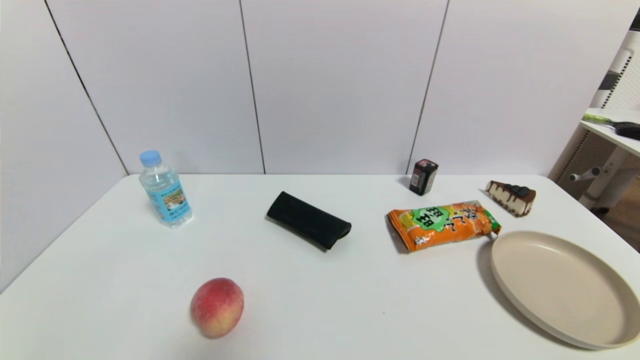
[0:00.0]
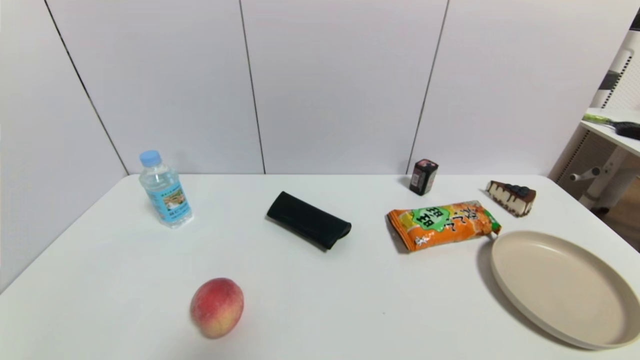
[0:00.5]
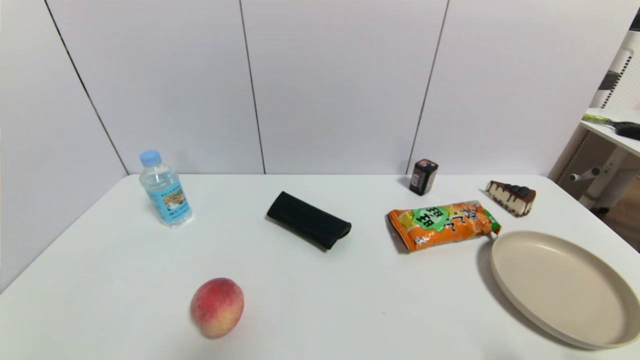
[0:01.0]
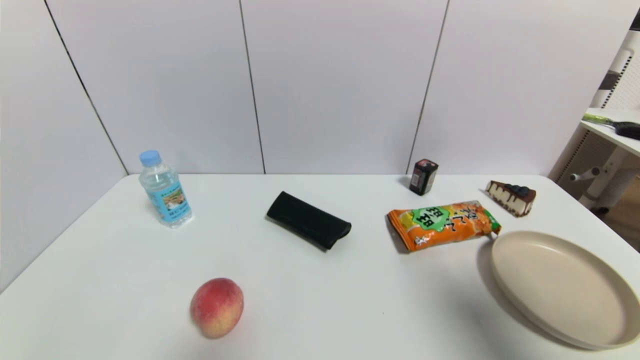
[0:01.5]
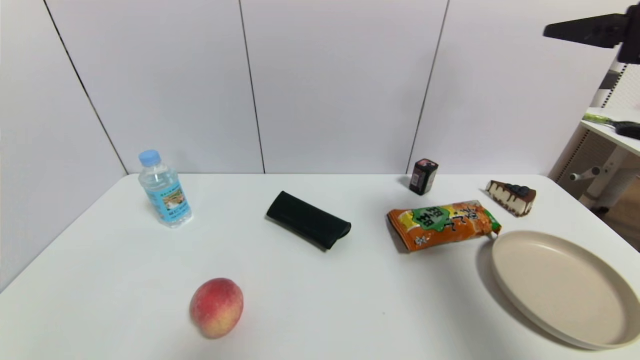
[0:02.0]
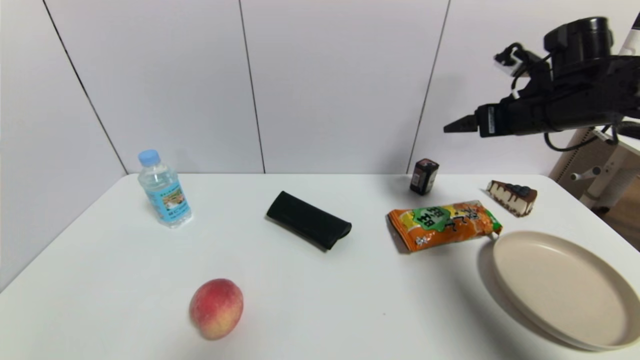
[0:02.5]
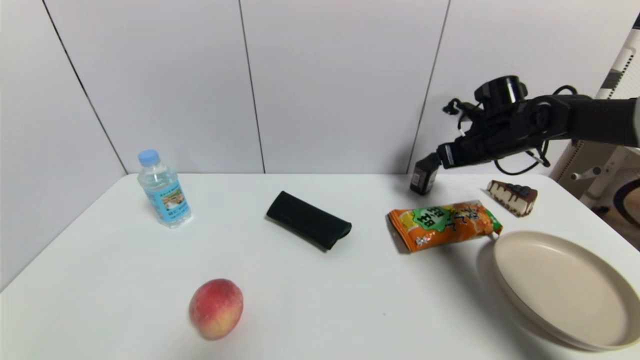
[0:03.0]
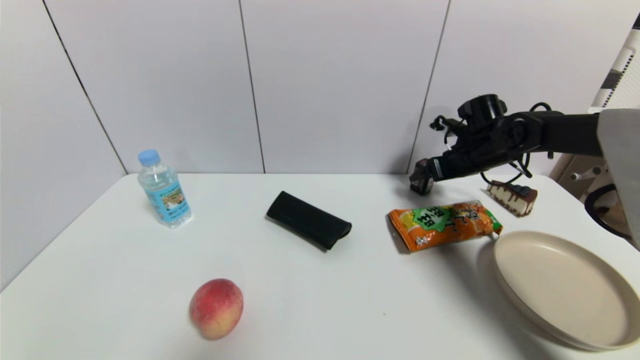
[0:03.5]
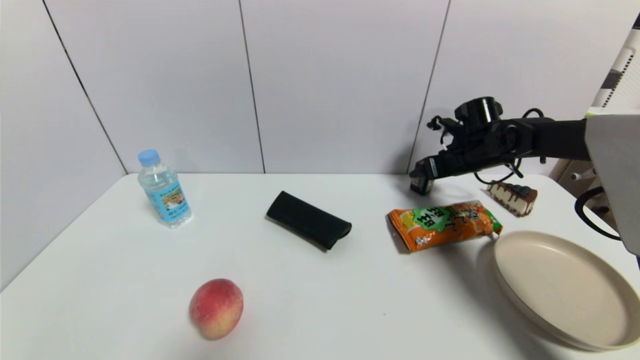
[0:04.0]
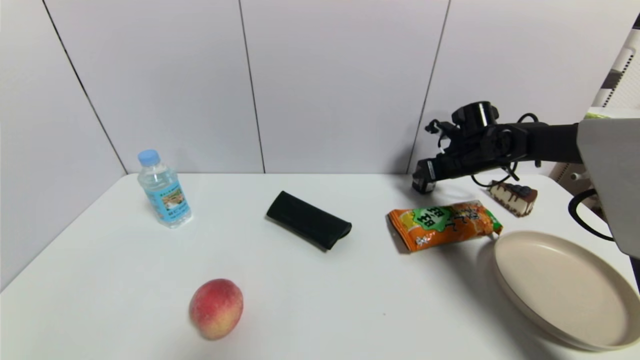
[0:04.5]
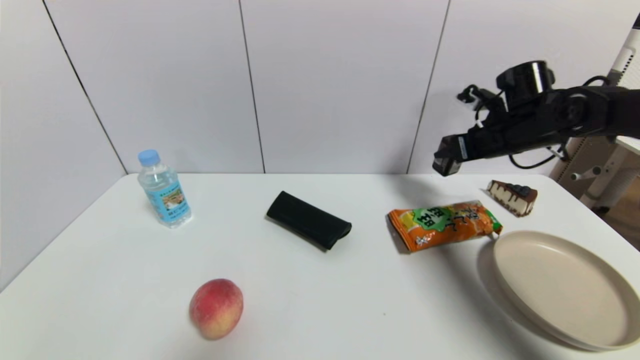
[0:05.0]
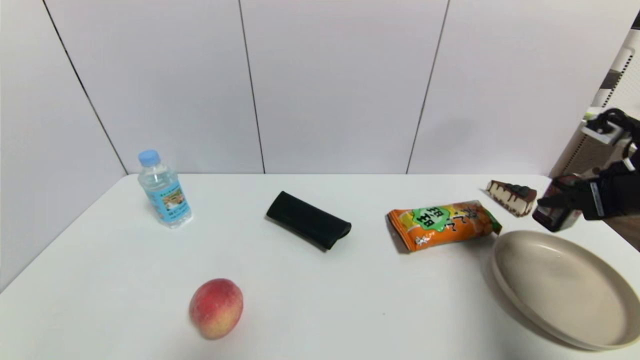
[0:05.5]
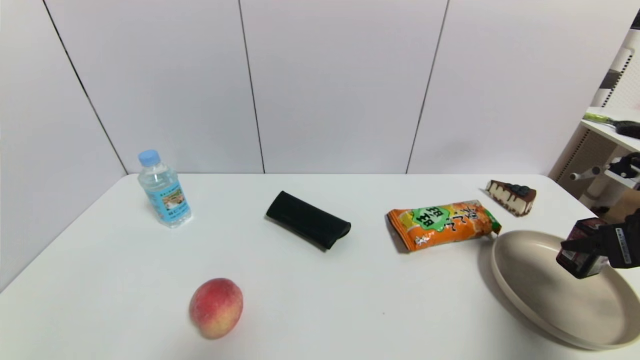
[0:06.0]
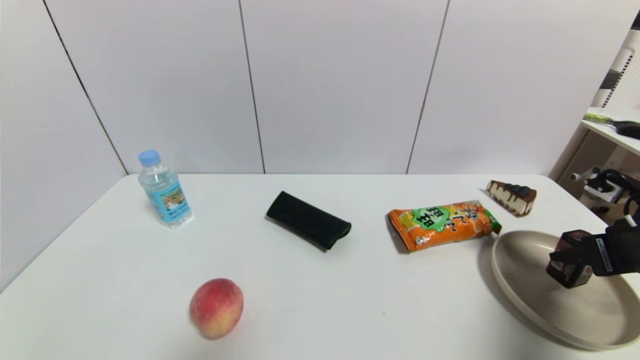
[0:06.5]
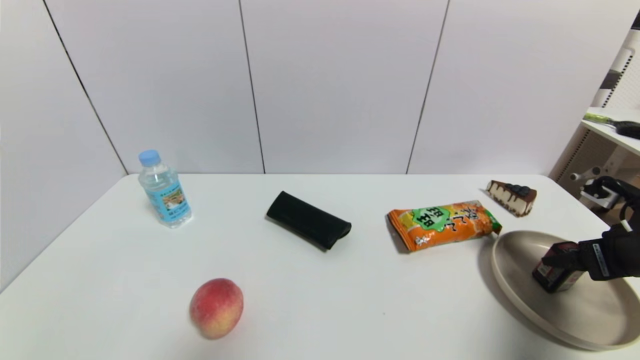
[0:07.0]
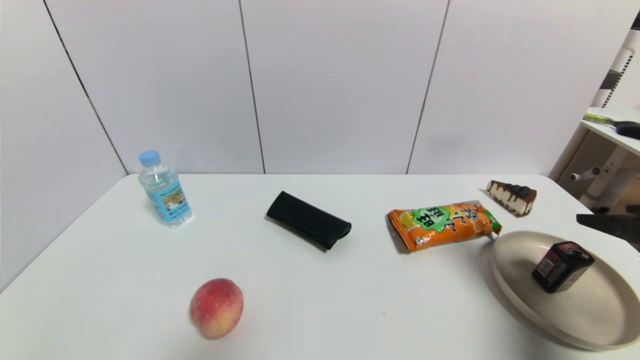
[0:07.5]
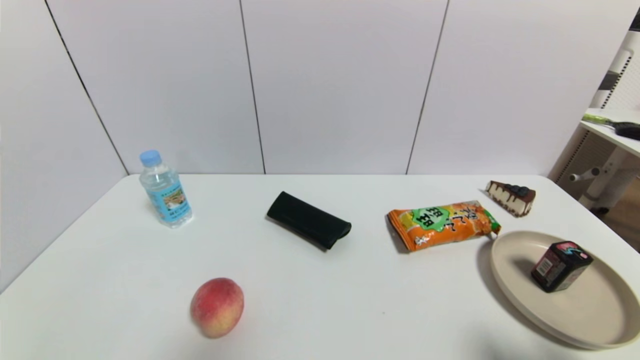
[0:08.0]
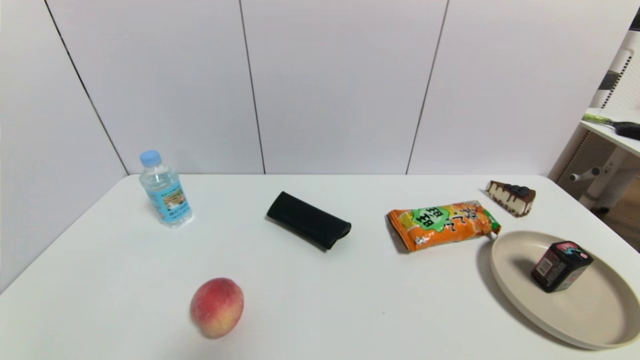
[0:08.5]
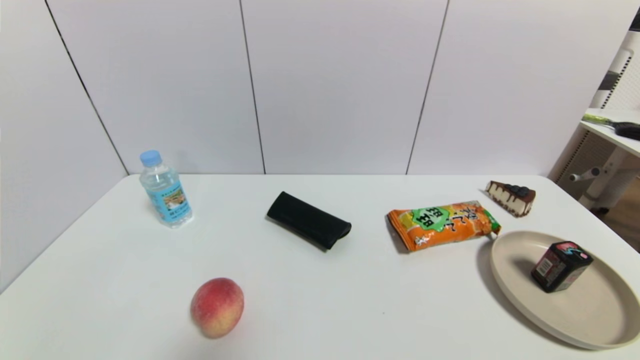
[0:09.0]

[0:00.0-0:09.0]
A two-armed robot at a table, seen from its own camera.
Task of the whole recording: use a gripper to pick the target object and place on the brown plate.
Step, 0:00.0 to 0:04.0: Grasp the square chewing gum with the right gripper.
Step, 0:04.5 to 0:07.0: Place the square chewing gum on the brown plate with the right gripper.
0:00.0 to 0:02.0: The right gripper travels upward and forward by roughly 40 cm.
0:02.0 to 0:04.5: The right gripper goes roughly 30 cm forward and downward, and closes.
0:04.5 to 0:07.0: The right gripper moves backward and to the right, some 25 cm, and opens.
0:07.0 to 0:09.0: The right gripper is displaced backward by roughly 25 cm, and opens up.
